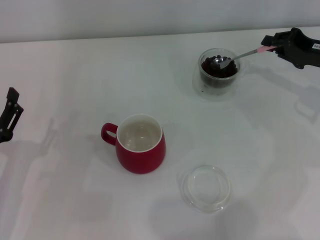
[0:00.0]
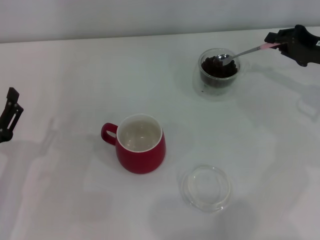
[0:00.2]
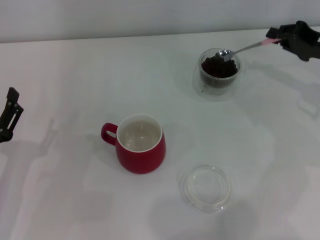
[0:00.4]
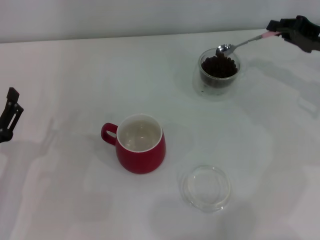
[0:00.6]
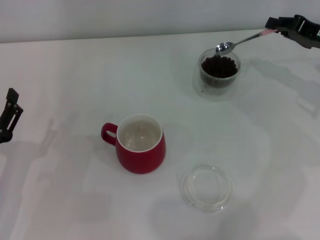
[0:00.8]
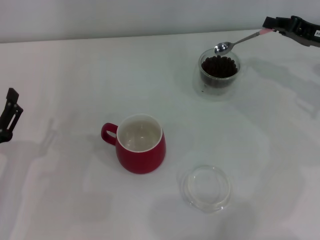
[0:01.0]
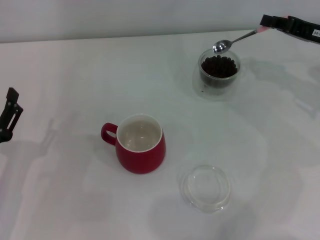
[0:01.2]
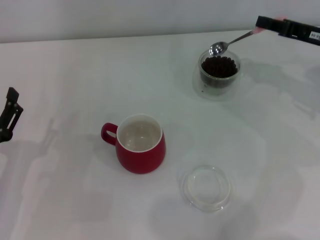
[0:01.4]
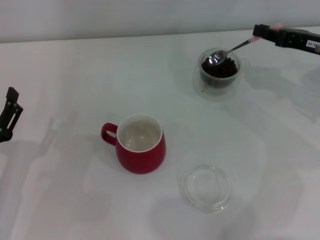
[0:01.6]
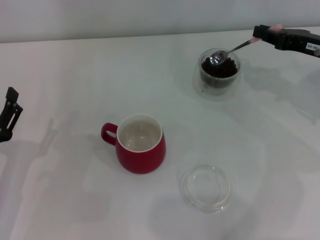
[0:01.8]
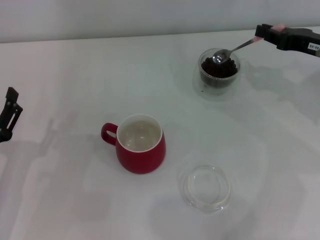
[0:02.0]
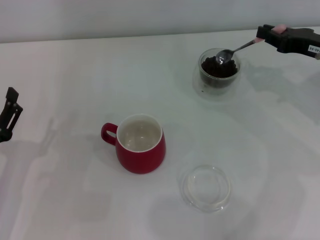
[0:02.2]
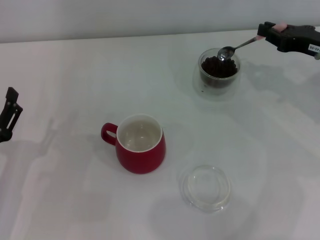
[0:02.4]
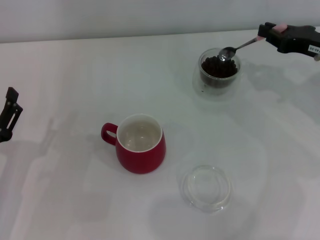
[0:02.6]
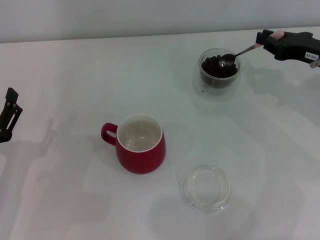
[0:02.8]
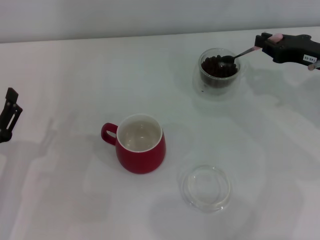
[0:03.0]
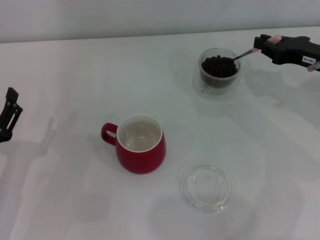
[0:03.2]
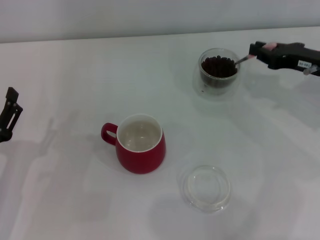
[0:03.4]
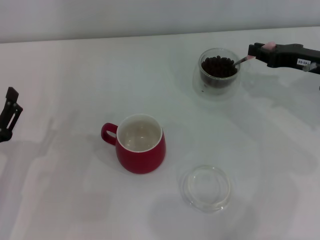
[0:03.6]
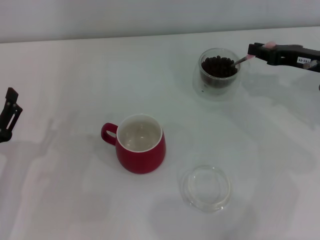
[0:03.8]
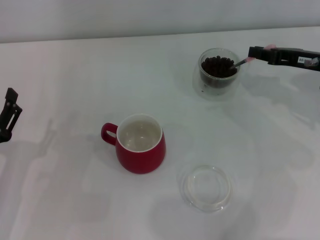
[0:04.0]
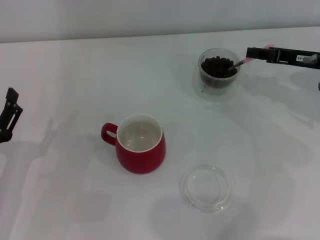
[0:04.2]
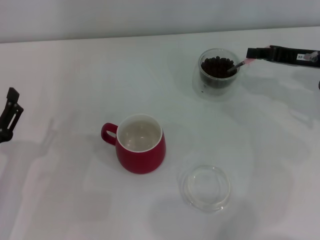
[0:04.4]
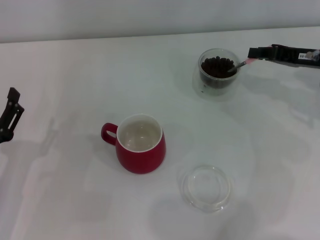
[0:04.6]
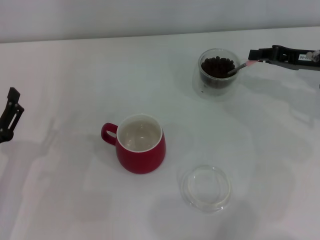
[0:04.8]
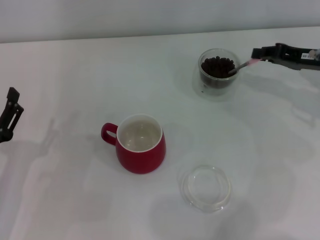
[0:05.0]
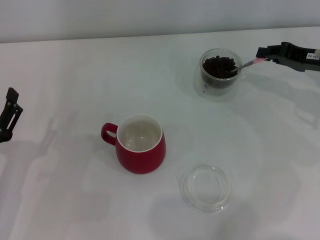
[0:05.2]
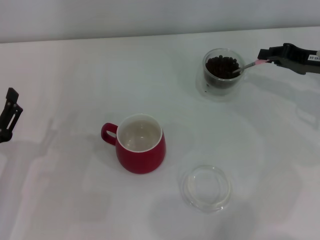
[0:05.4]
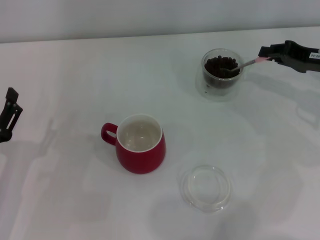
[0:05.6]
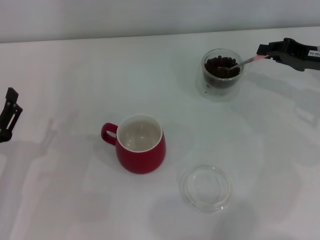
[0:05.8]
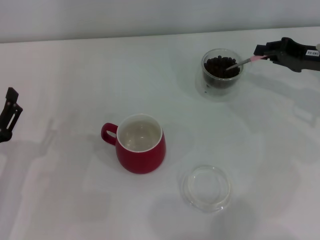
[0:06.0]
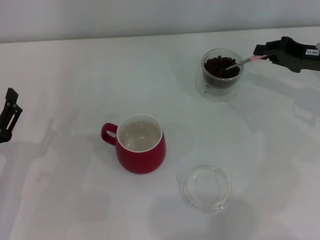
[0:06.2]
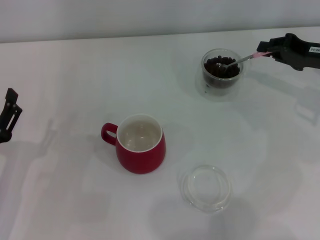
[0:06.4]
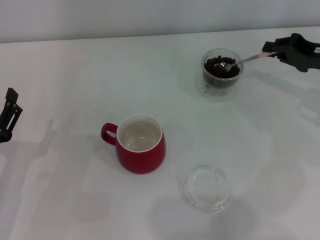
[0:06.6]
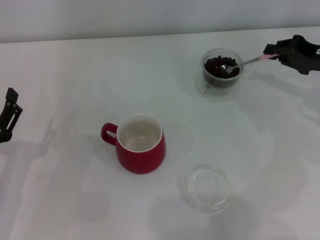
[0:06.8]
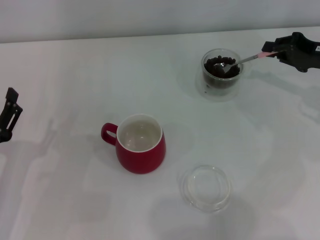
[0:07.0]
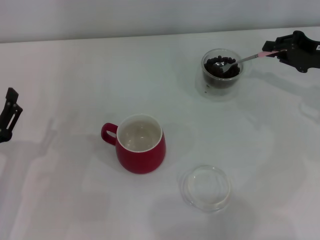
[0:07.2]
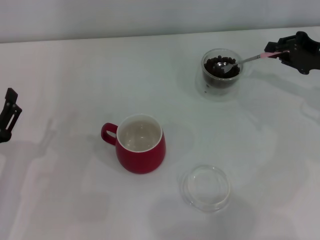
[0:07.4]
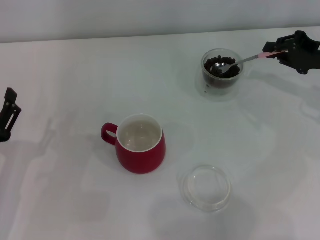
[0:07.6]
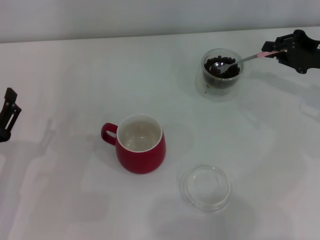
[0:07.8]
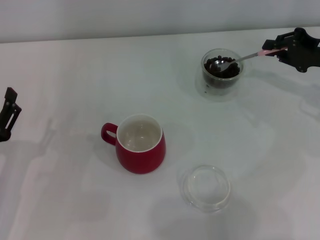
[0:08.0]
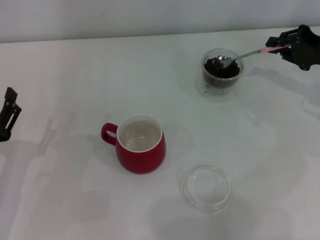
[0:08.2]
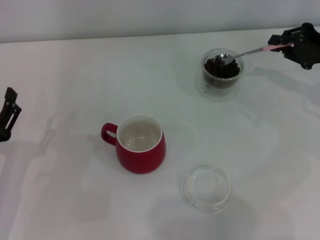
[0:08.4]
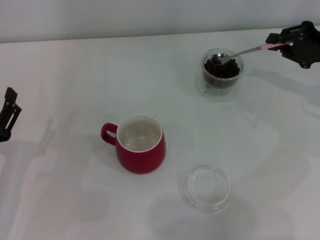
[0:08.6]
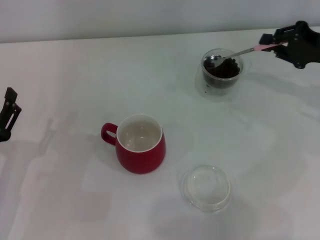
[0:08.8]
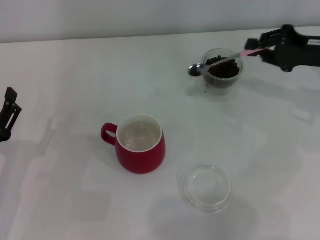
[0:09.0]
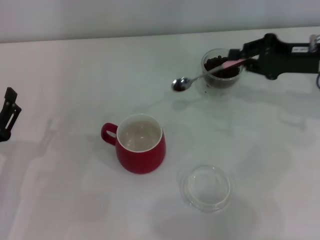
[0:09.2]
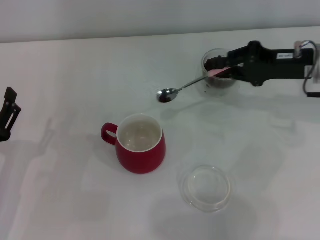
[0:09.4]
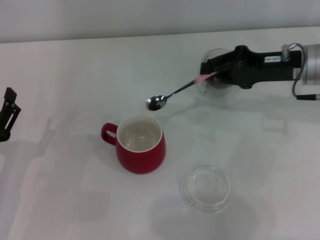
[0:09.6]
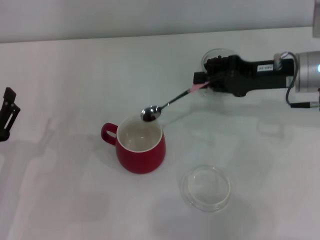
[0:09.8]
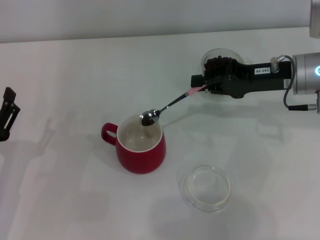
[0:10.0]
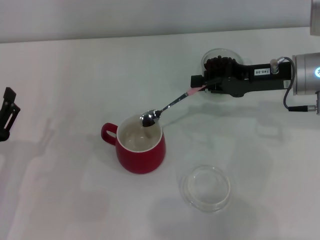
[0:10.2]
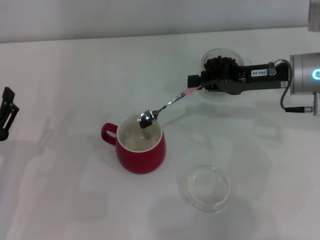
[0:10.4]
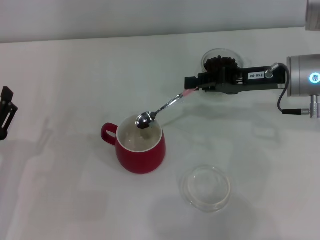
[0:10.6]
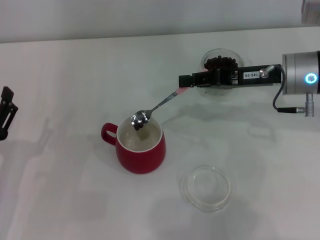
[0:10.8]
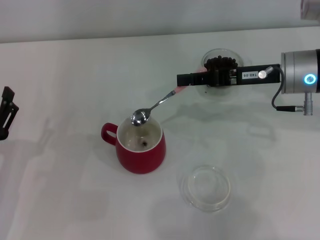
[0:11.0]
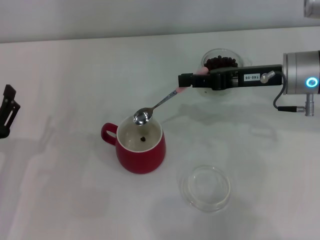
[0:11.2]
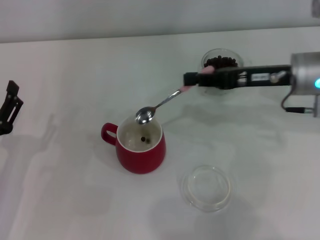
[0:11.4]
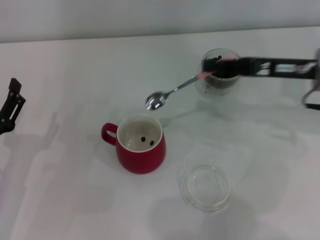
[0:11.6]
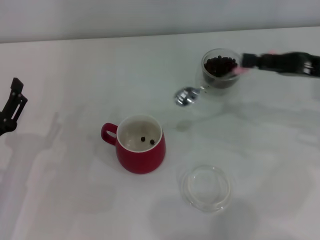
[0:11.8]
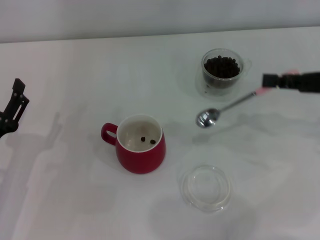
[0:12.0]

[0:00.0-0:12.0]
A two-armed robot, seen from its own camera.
Task of the whole recording: Use a pink spoon to take out the coffee beans from the glass and pour them into the red cup.
Step, 0:00.0 to 0:11.4: Scoop a spoonful of beans into the cup with the right gripper.
0:01.6 to 0:03.0: The grippers make only small movements.
0:04.4 to 0:06.0: The grippers make only small movements.
0:06.0 to 0:07.6: The grippers move only a little.
0:07.6 to 0:09.0: The grippers move only a little.
0:09.0 to 0:10.4: The right gripper shifts roughly 10 cm to the left.
0:10.4 to 0:12.0: The right gripper shifts some 10 cm to the right and backward.

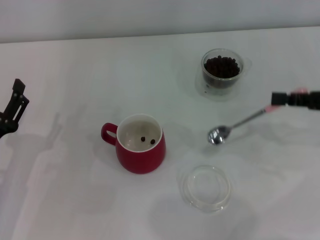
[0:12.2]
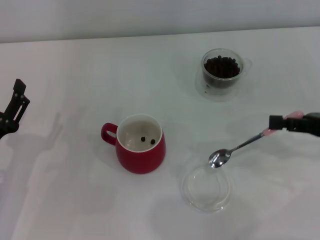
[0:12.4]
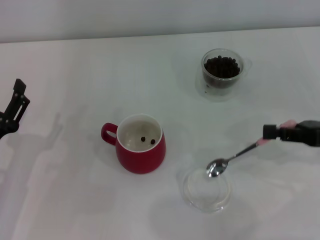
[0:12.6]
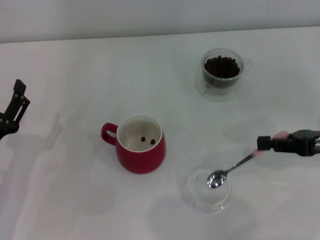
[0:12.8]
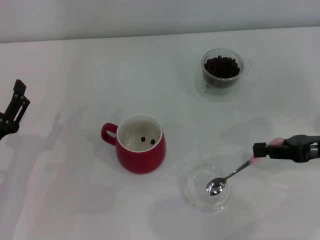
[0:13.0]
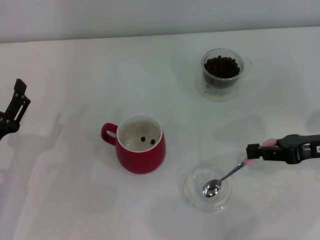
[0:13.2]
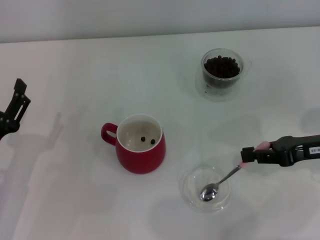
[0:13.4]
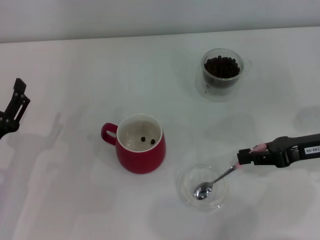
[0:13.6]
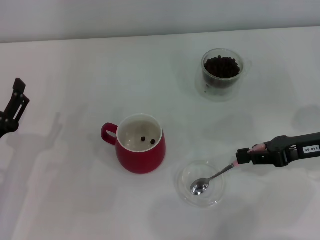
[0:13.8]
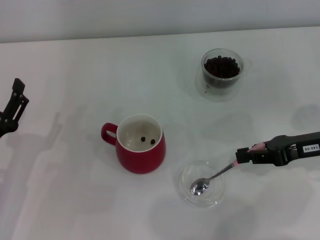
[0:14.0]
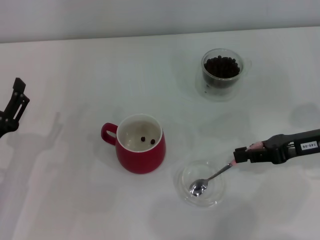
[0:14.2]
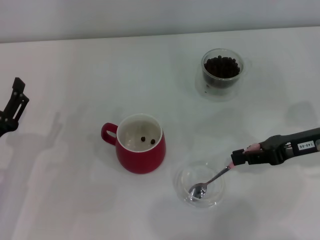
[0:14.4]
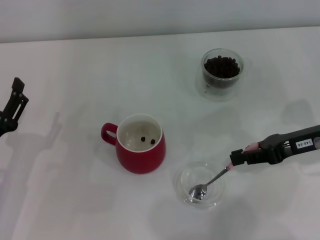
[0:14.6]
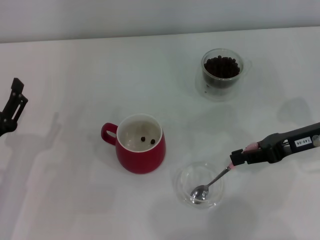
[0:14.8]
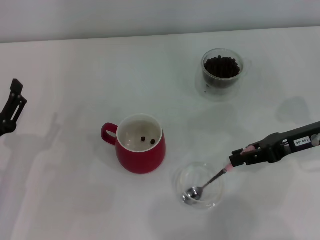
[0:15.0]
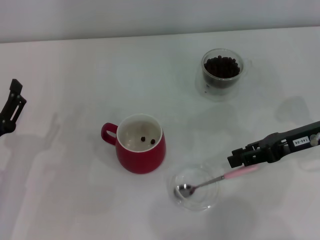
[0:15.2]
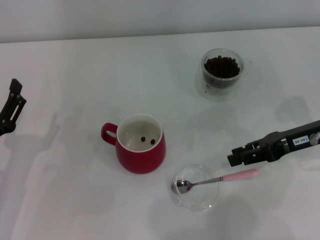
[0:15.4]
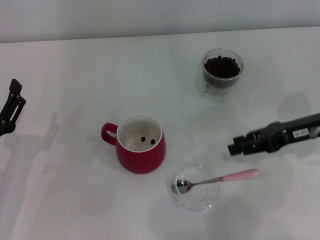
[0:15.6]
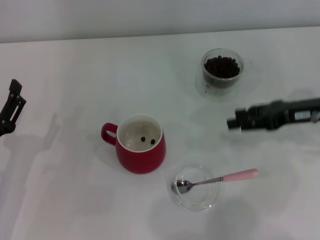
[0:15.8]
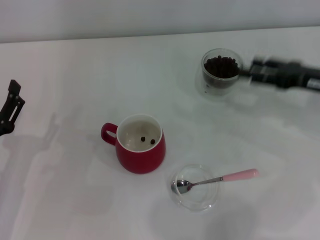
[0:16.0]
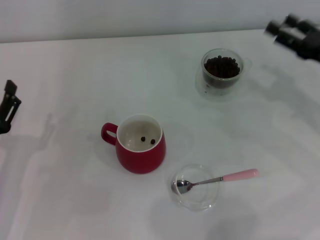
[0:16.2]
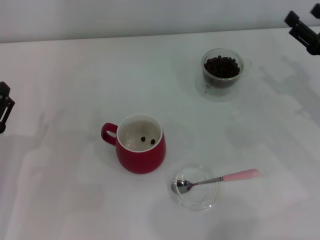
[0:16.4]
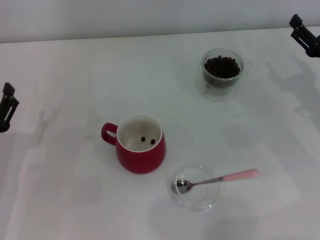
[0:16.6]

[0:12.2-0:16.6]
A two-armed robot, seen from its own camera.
Task of the whole recording: Use a pink spoon to take out the coffee beans from the glass and pour them into the red cup.
Step, 0:12.2 to 0:15.4: Place the spoon back in its original place with the right gripper.
0:12.2 to 0:13.6: The right gripper moves about 5 cm.
0:13.6 to 0:15.2: The grippers stay close to where they were, moving slightly.
0:15.2 to 0:16.6: The right gripper opens its fingers.

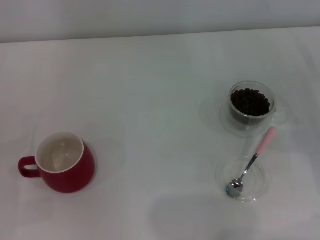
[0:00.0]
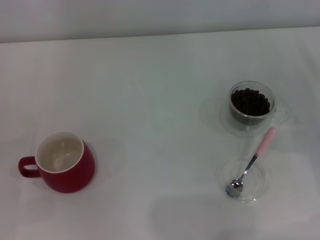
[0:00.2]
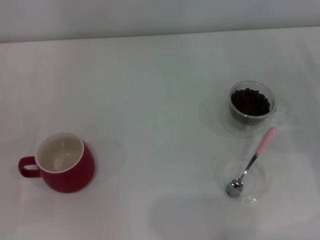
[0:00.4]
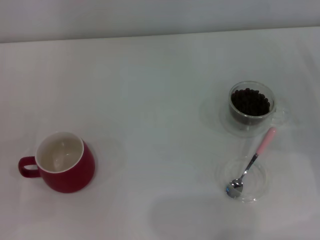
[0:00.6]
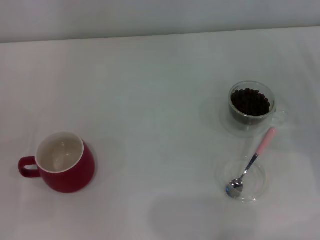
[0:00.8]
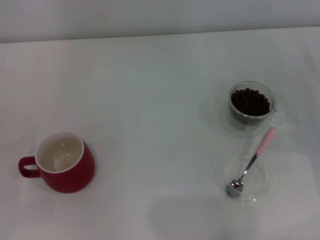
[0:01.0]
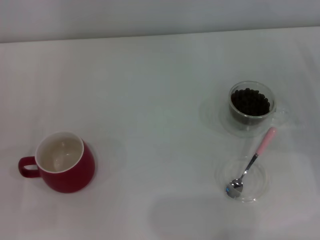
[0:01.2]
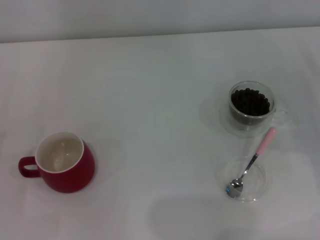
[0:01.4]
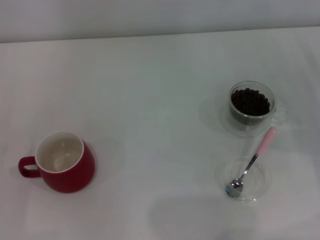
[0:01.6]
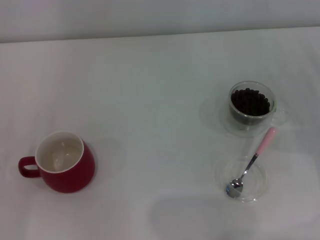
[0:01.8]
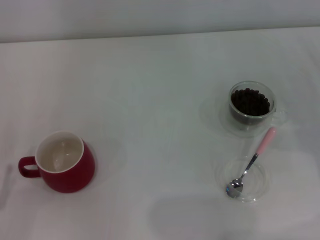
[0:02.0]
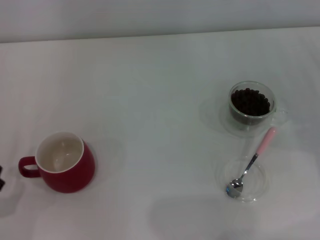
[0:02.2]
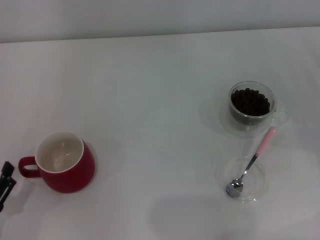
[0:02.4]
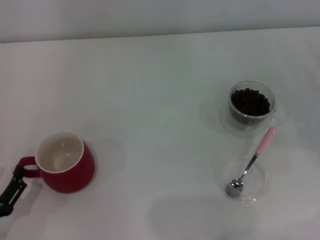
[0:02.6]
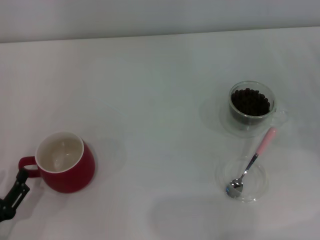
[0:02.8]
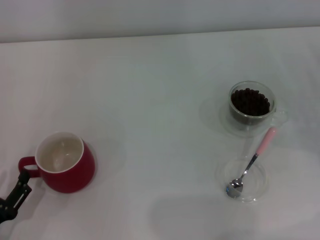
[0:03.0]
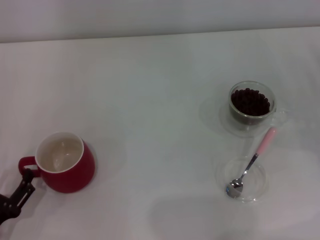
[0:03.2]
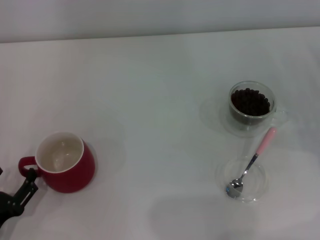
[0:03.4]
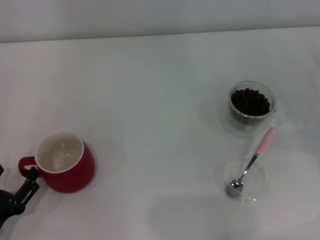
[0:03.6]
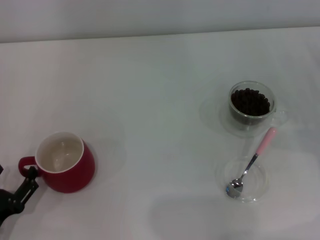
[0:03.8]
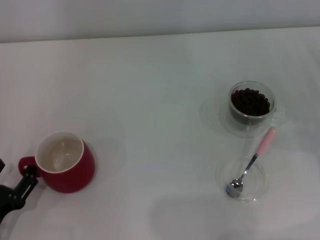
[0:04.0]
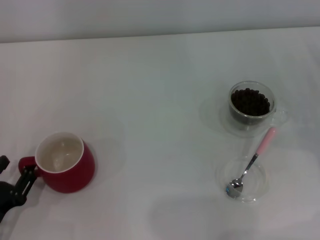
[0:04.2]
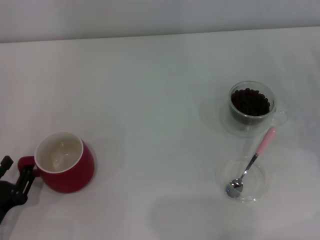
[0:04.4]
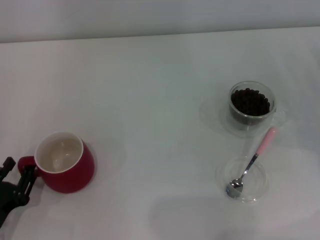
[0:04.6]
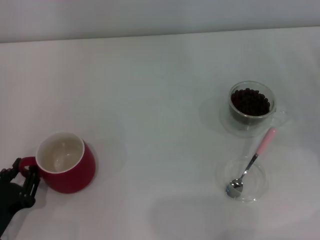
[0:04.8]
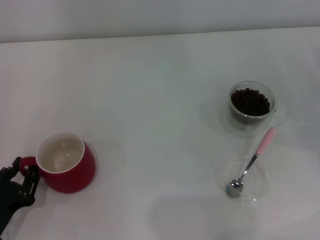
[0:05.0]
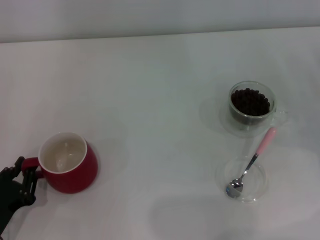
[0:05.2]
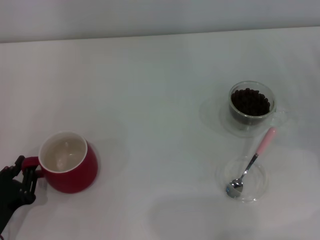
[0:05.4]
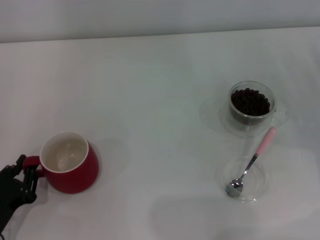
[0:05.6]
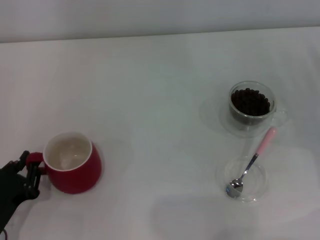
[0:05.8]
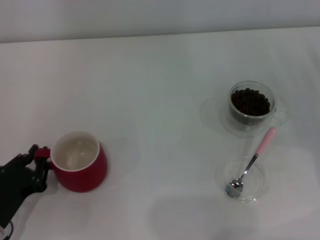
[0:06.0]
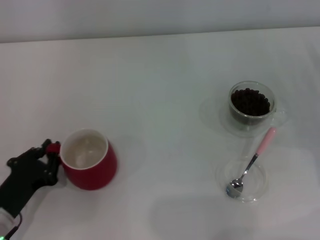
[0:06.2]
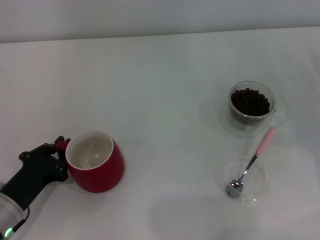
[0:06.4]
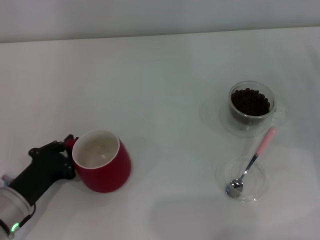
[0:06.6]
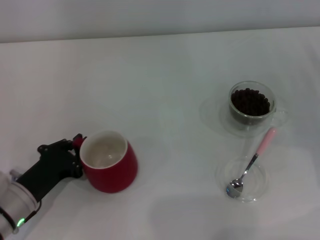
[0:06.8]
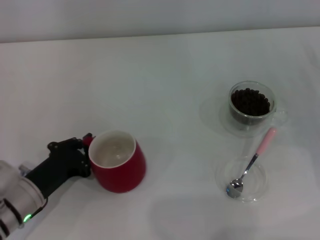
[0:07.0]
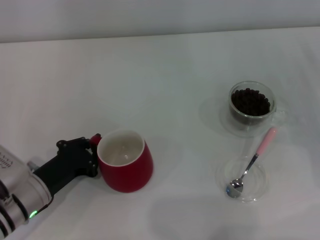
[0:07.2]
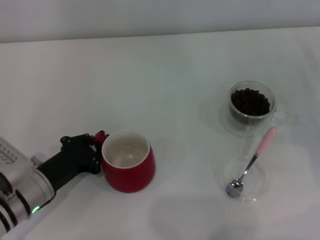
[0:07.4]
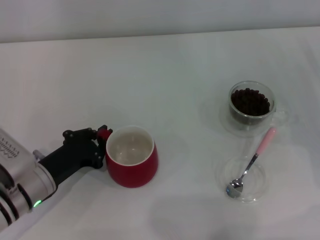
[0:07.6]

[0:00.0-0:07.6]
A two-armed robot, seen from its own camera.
Task of the whole recording: Use a pink spoon to take out the coffee beans from the glass and pour them into the red cup.
0:01.6 to 0:03.0: The left gripper ends up approximately 5 cm from where it was.
0:03.0 to 0:04.6: The left gripper closes up.
0:04.6 to 0:06.0: The left gripper closes its fingers.
0:06.0 to 0:07.6: The left gripper travels forward and to the right by some 10 cm.
